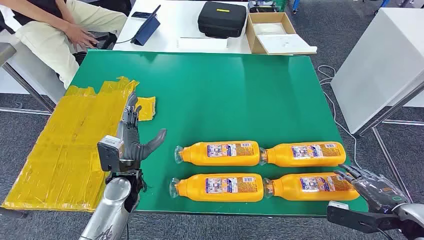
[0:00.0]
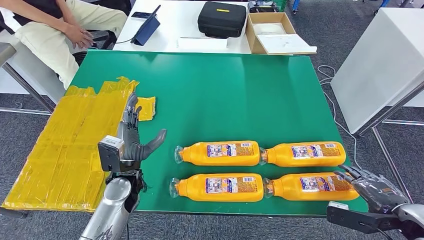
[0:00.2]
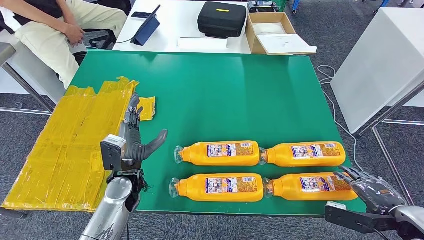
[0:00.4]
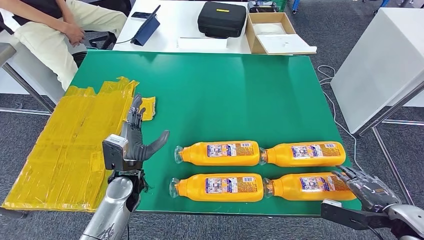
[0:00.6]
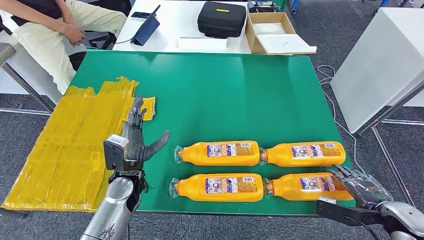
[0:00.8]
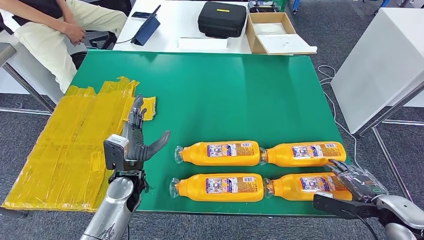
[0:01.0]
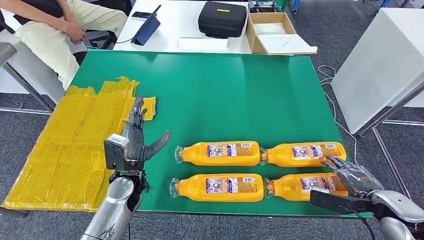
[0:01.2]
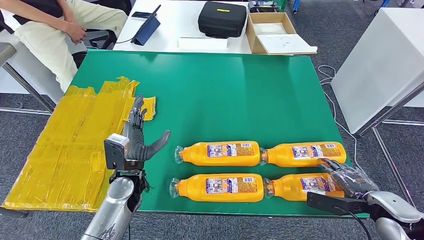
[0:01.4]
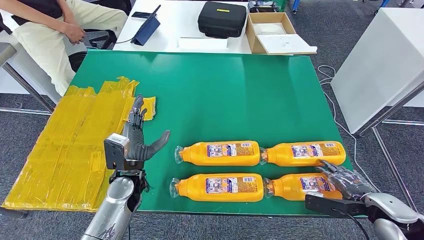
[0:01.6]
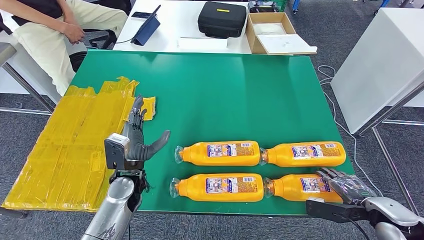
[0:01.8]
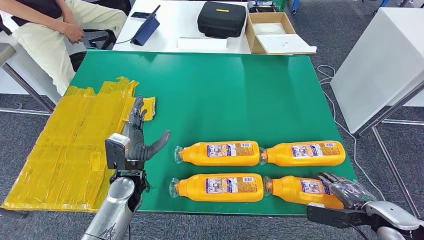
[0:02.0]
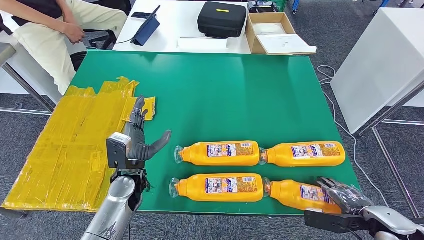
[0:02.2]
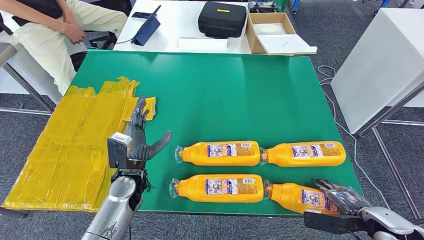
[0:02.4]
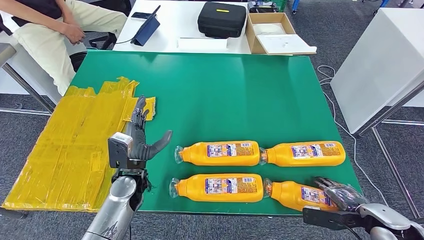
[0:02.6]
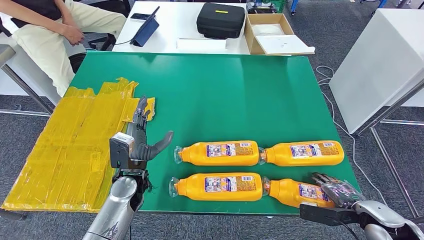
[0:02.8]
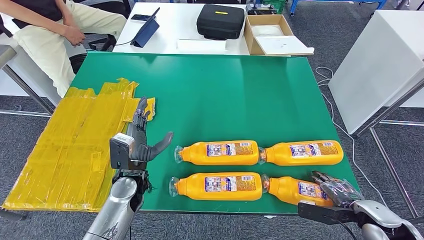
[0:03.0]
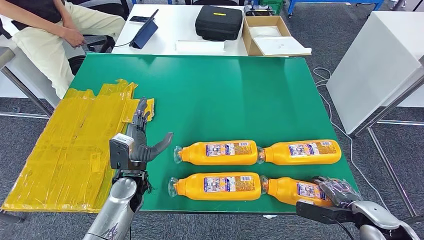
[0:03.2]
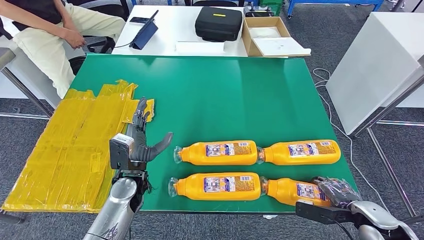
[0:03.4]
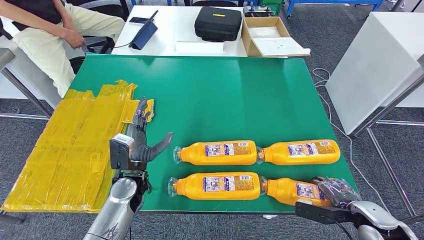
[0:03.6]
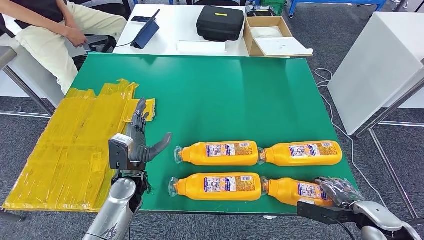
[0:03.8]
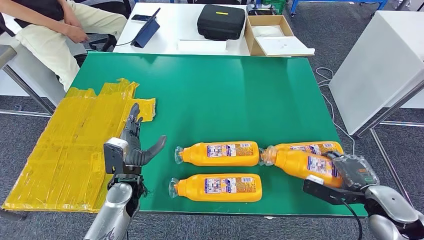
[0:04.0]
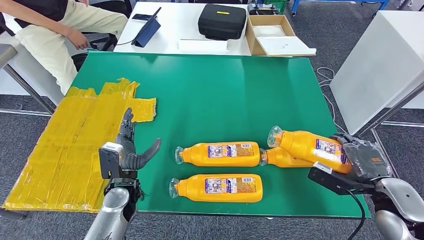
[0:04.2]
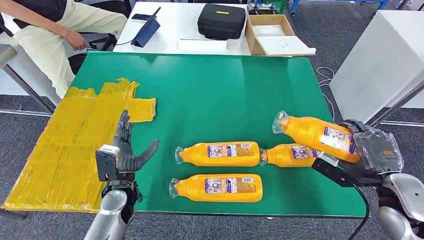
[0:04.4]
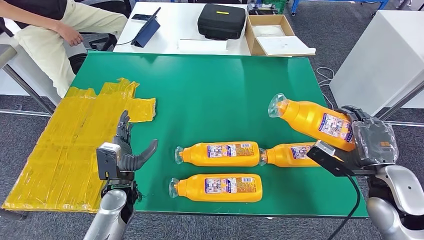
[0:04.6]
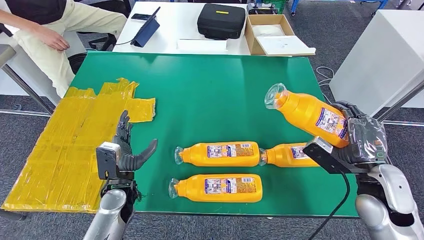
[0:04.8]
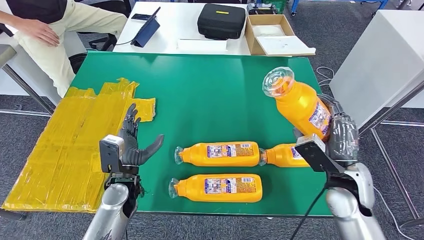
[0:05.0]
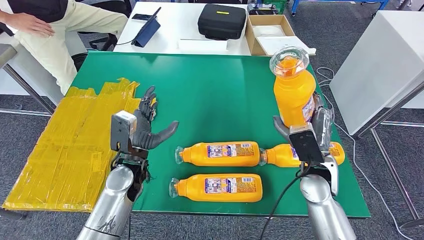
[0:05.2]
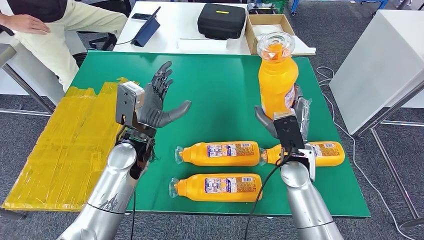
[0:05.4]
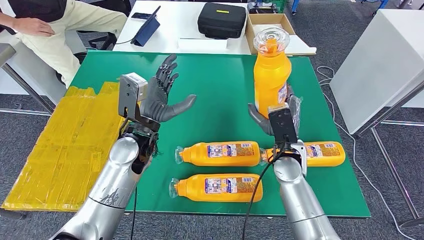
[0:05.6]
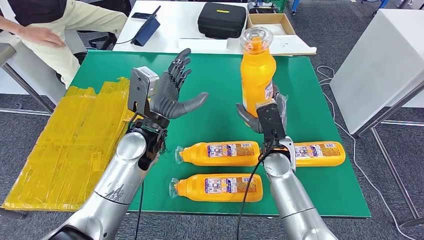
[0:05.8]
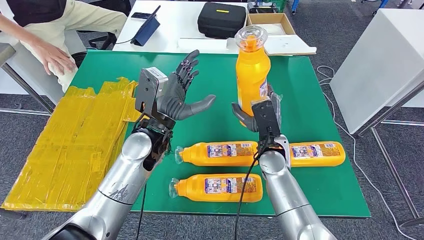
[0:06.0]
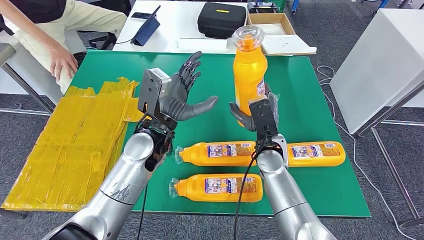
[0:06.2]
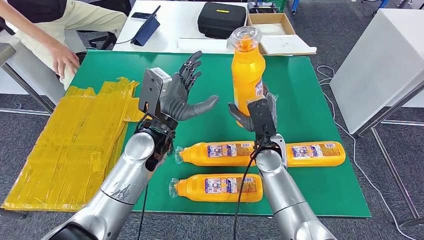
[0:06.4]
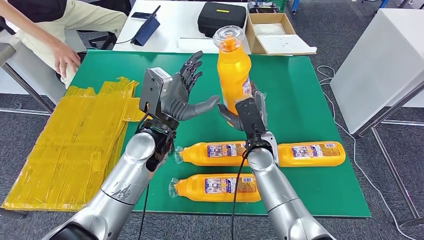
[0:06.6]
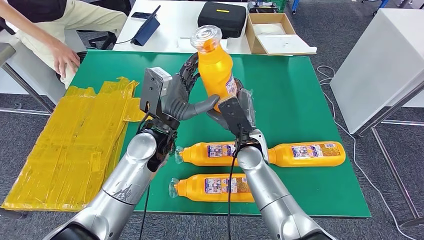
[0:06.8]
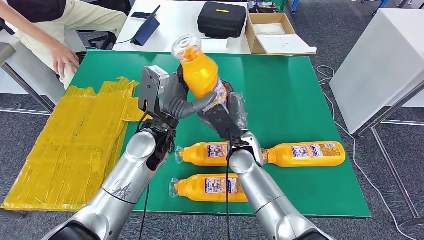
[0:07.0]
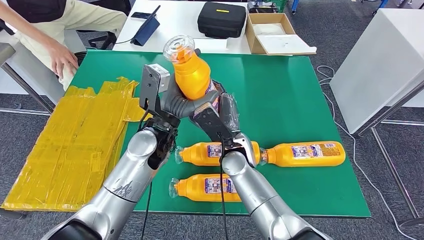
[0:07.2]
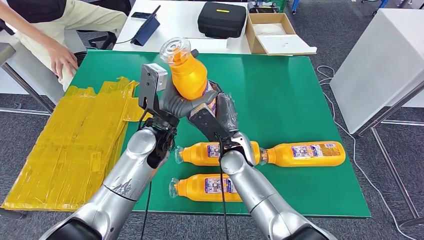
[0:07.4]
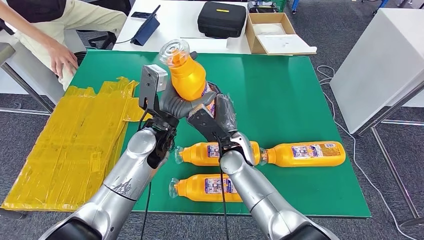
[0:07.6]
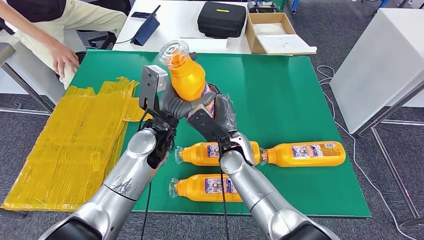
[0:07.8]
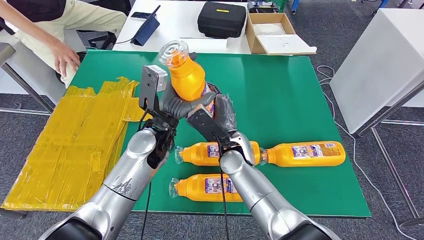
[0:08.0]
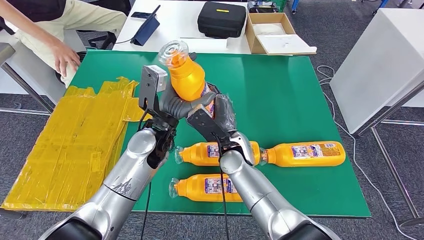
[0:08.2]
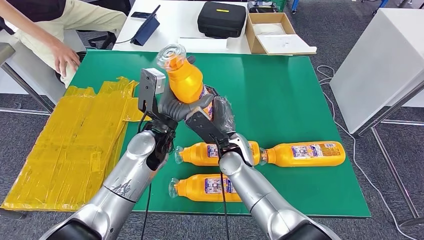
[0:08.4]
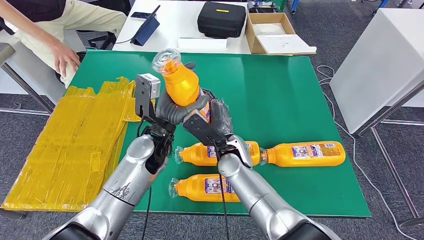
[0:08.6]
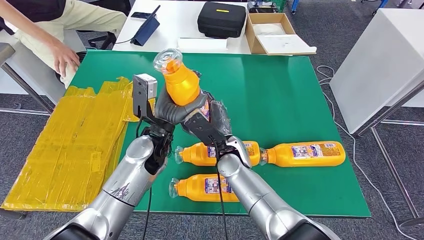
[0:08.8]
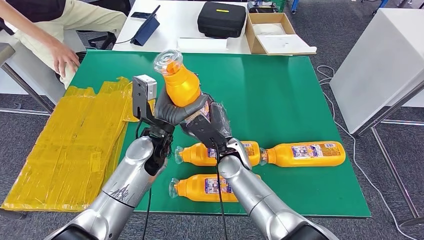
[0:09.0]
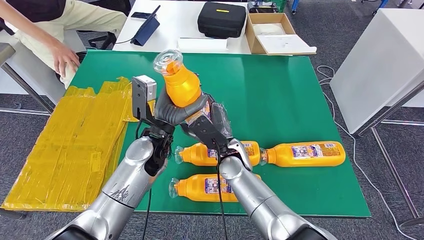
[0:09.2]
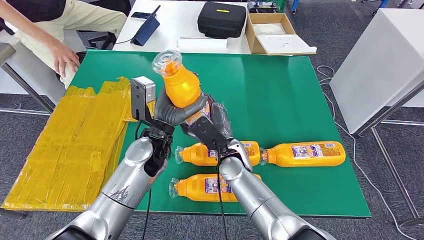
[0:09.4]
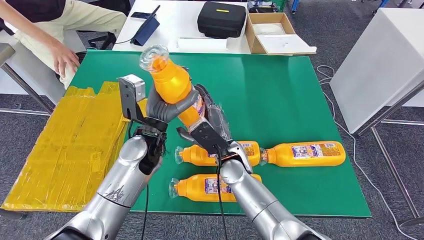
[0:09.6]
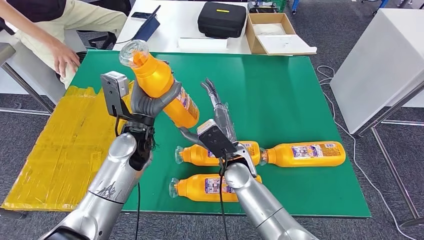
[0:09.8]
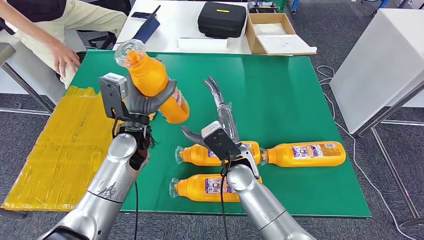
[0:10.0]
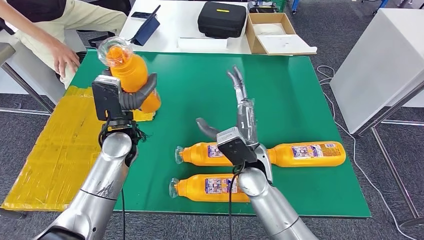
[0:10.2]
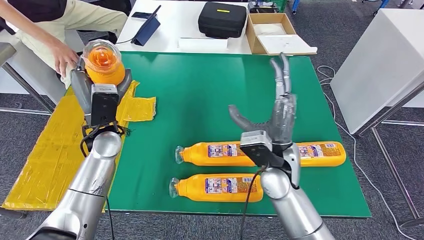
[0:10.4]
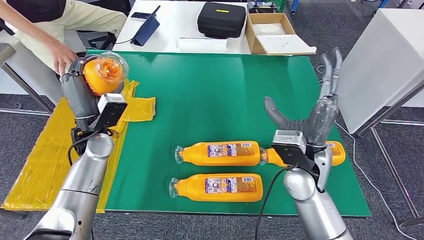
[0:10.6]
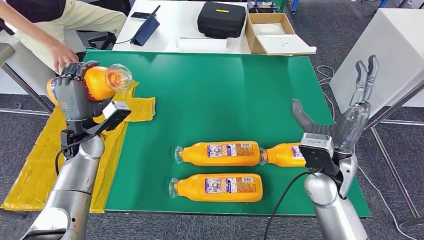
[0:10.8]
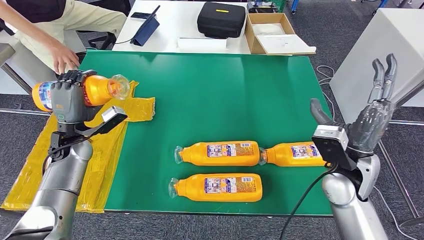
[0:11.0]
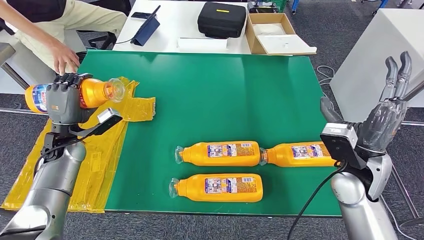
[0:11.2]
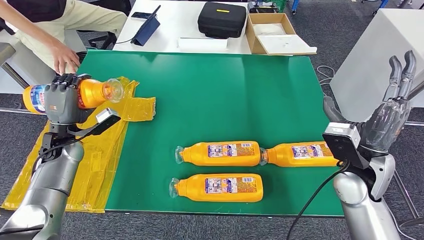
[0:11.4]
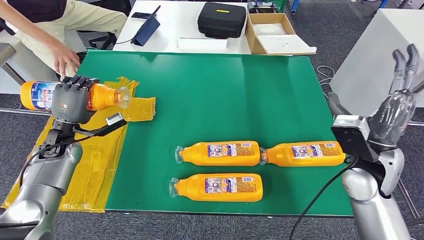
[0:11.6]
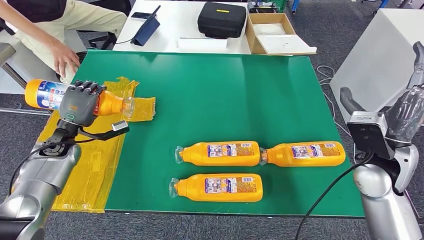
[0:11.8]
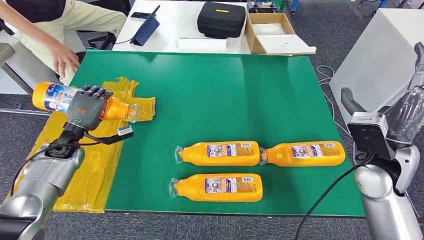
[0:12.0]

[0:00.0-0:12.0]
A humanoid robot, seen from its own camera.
Step, 0:00.0 to 0:06.4: Take the bottle from the table.
0:01.6 to 0:03.0: The hands make only small movements.
0:06.0 to 0:07.6: The right hand is displaced to the left by approximately 10 cm.
0:07.6 to 0:09.0: The hands make only small movements.

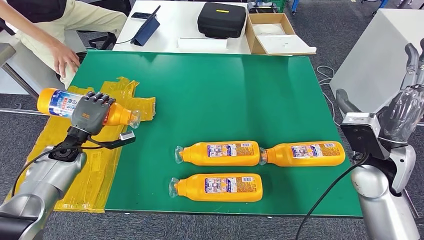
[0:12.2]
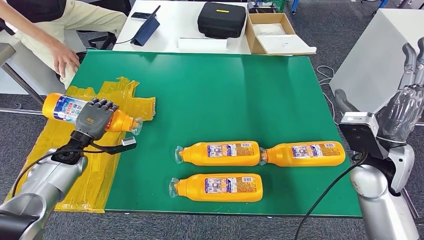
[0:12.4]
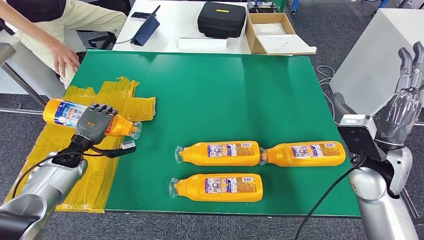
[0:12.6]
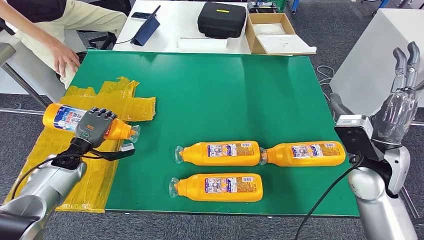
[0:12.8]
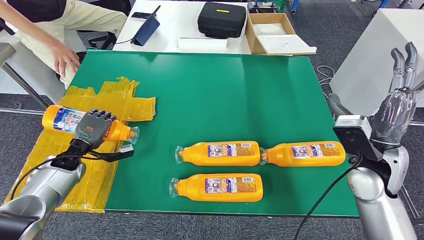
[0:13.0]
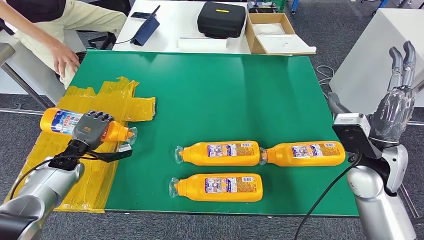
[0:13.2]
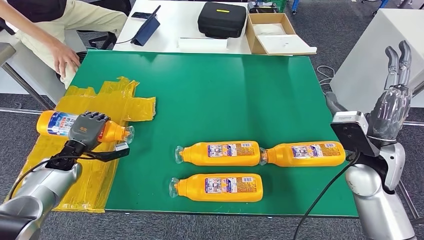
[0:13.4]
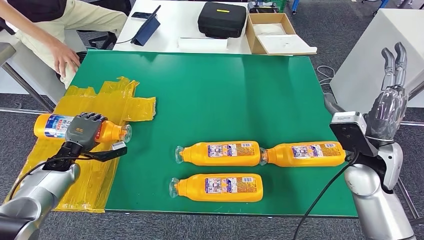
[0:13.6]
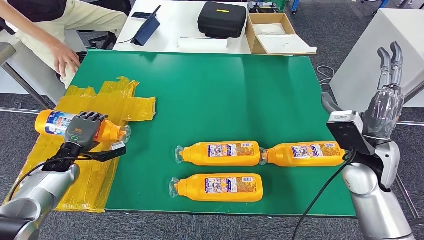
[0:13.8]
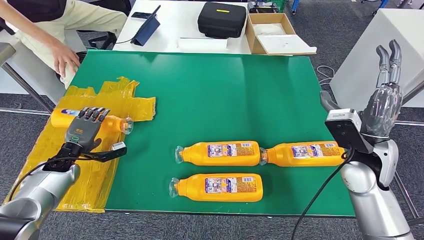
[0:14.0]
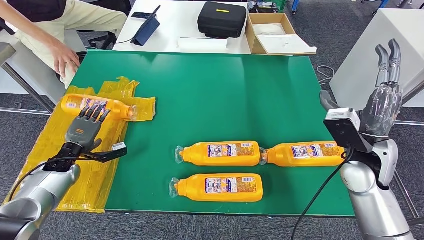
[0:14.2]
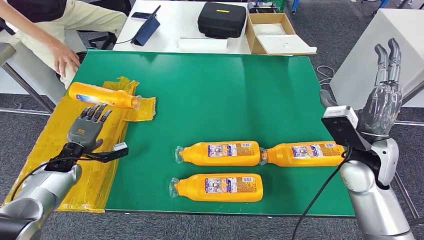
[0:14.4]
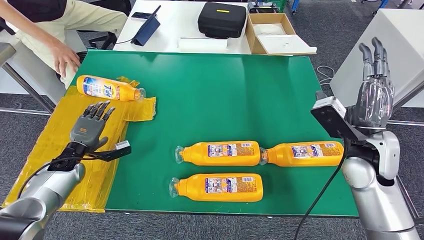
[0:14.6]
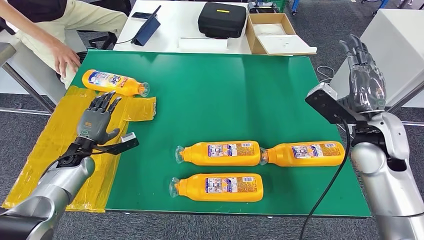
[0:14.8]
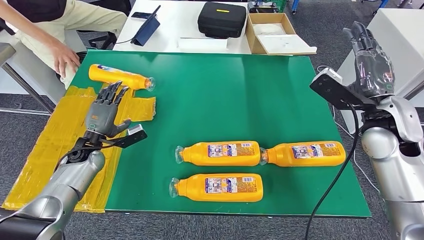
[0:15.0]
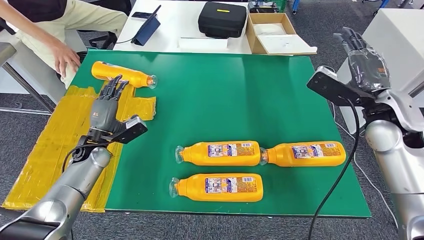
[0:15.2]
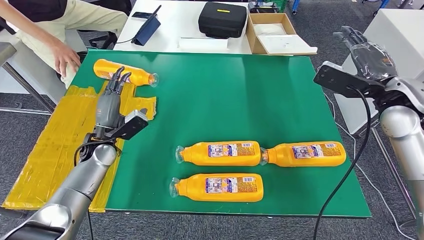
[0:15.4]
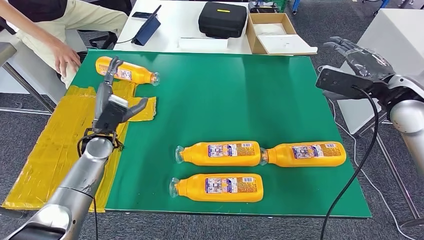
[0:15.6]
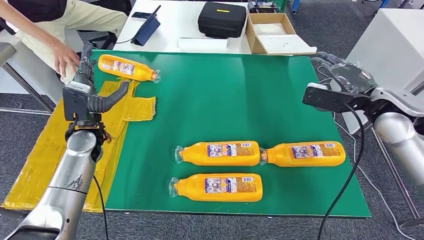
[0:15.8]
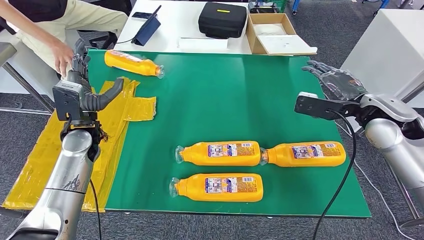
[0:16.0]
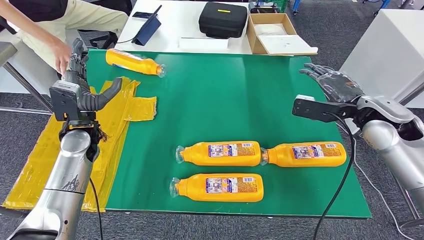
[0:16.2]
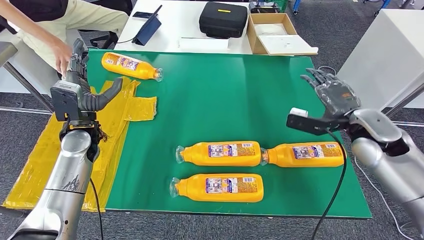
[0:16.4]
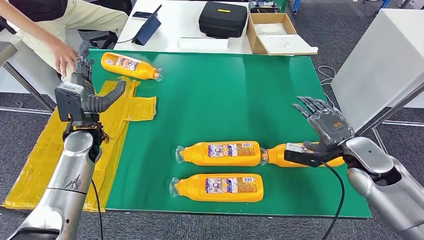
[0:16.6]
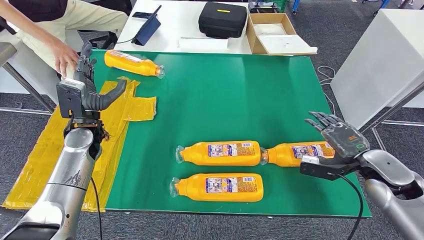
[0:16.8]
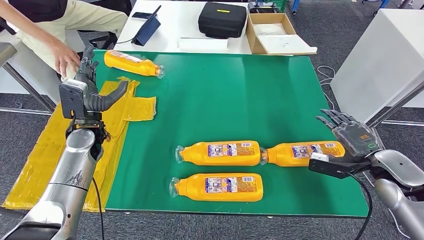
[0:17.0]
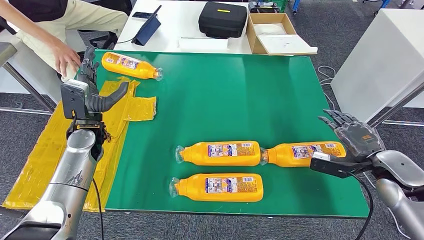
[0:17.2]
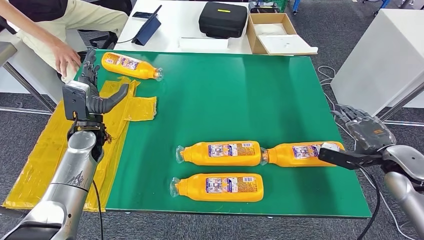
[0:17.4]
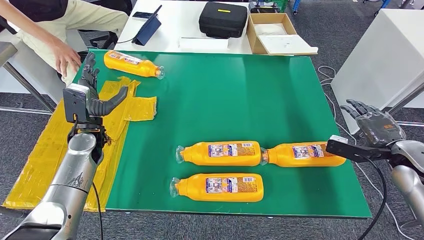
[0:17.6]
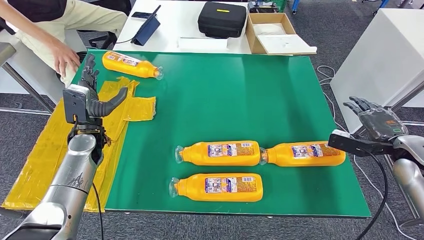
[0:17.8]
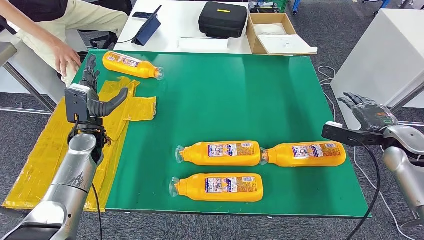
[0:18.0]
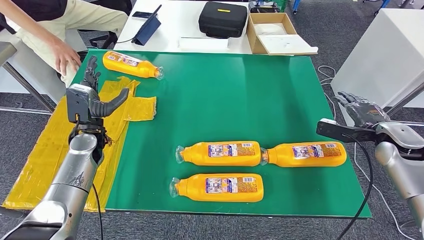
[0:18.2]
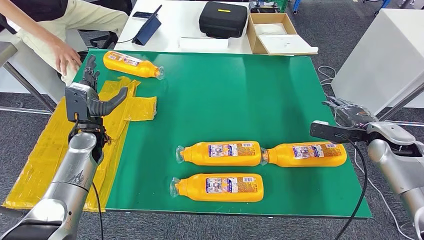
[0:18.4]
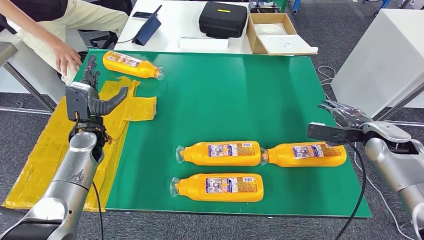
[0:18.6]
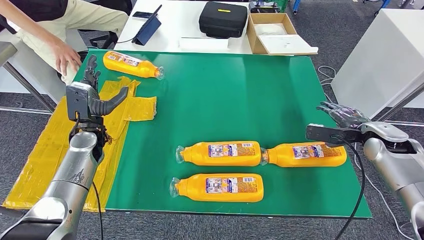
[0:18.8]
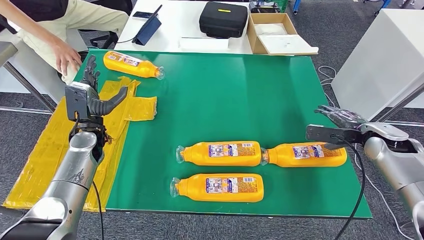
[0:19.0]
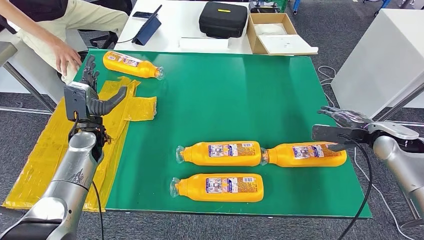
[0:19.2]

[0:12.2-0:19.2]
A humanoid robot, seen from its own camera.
Step, 0:12.2 to 0:17.0: Flip the bottle to face forward.
0:12.2 to 0:13.6: The left hand heads downward, covering about 5 cm.
0:16.4 to 0:17.8: The right hand is displaced to the right by approximately 10 cm.
0:17.8 to 0:19.2: The right hand moves some 5 cm.
